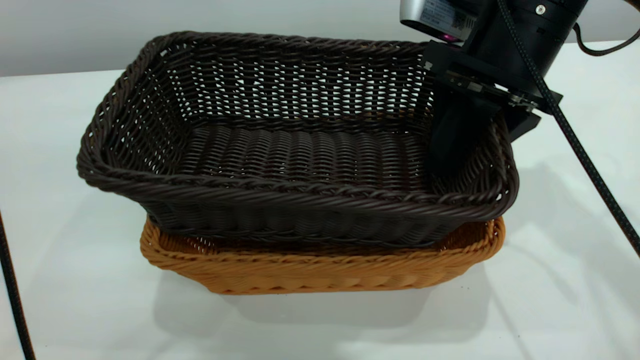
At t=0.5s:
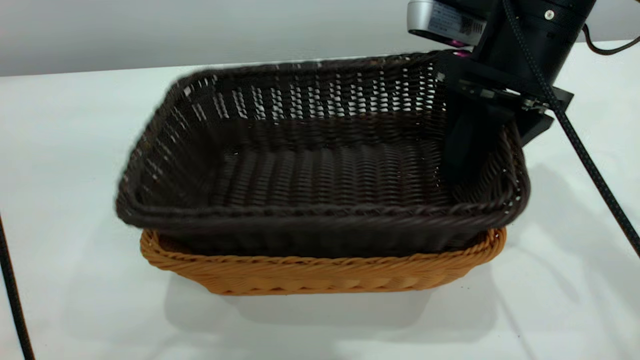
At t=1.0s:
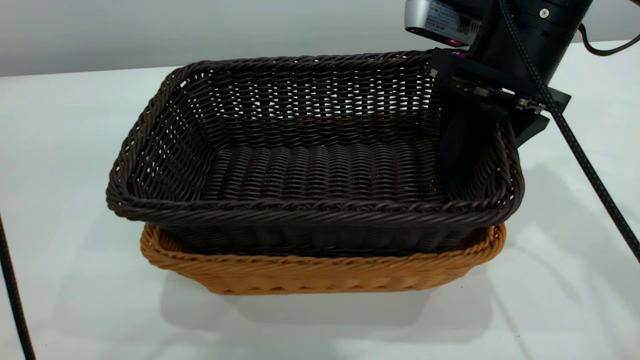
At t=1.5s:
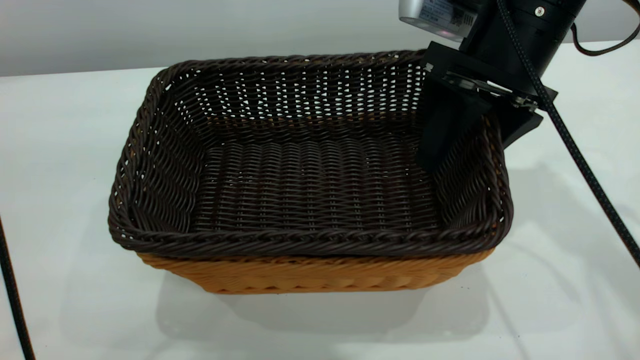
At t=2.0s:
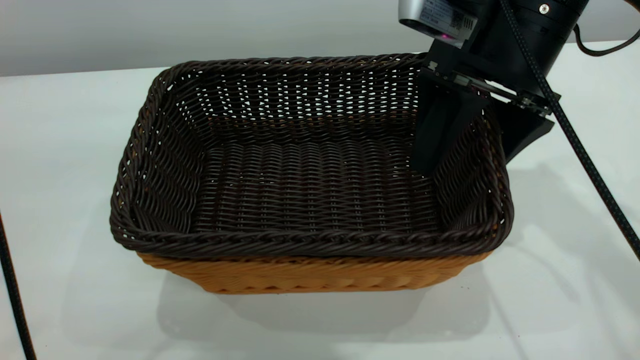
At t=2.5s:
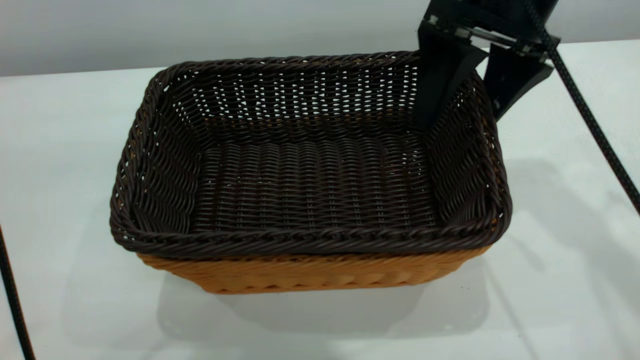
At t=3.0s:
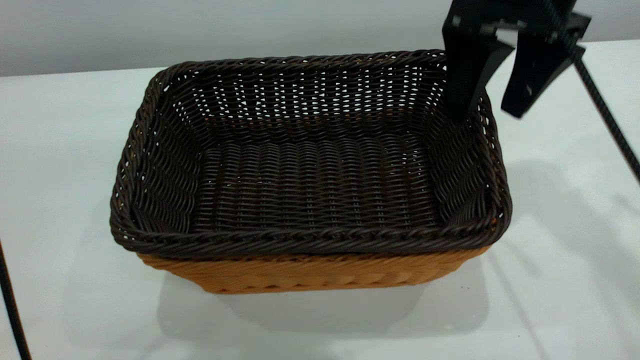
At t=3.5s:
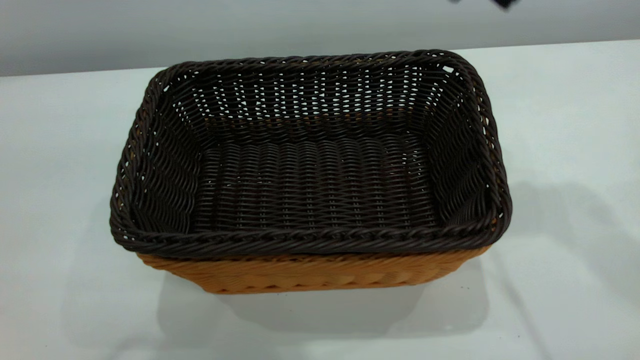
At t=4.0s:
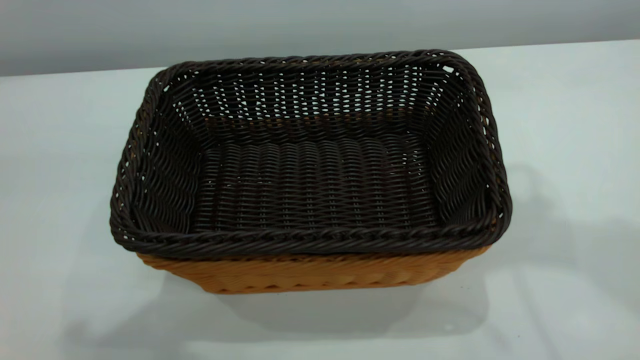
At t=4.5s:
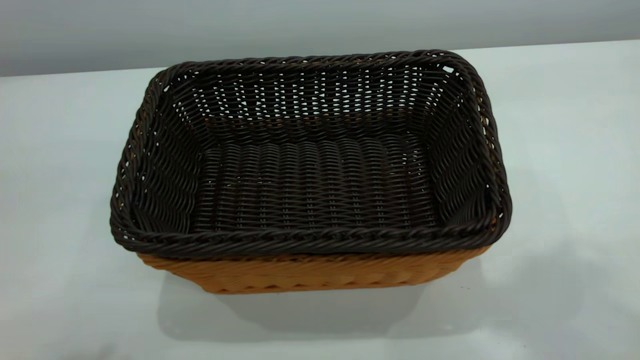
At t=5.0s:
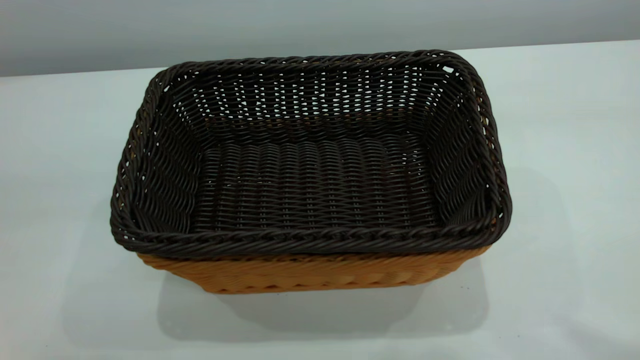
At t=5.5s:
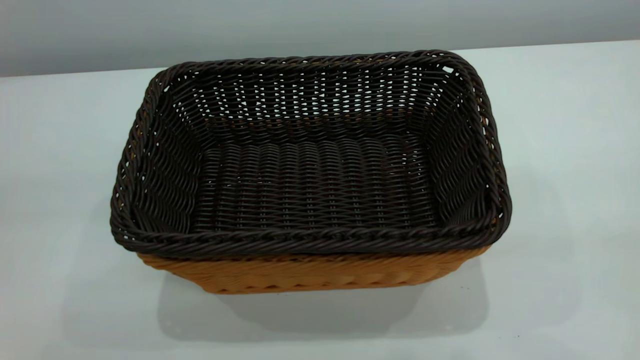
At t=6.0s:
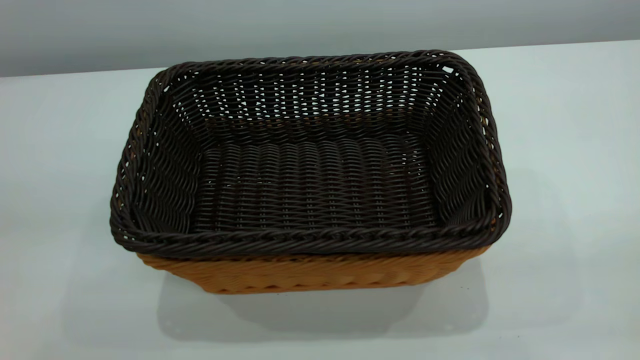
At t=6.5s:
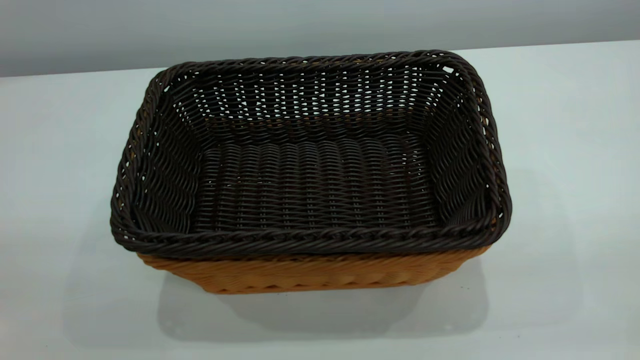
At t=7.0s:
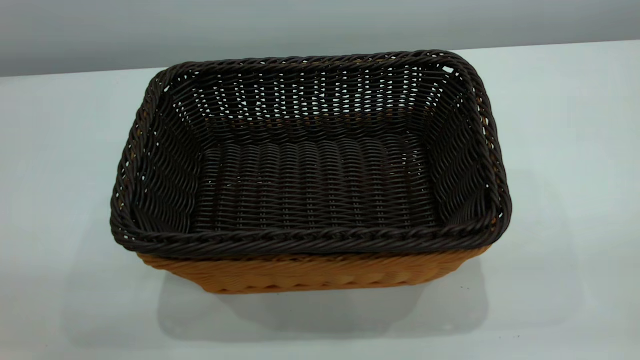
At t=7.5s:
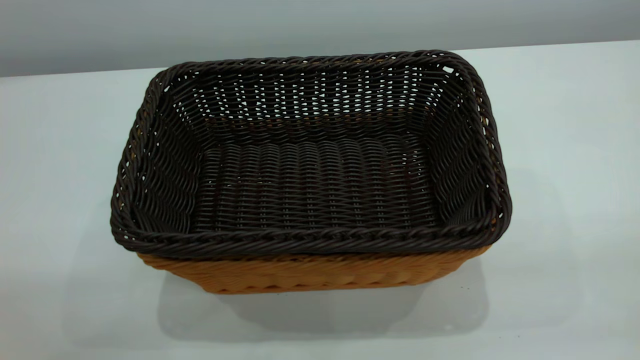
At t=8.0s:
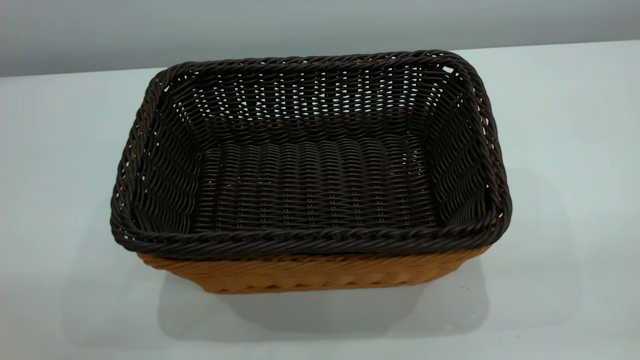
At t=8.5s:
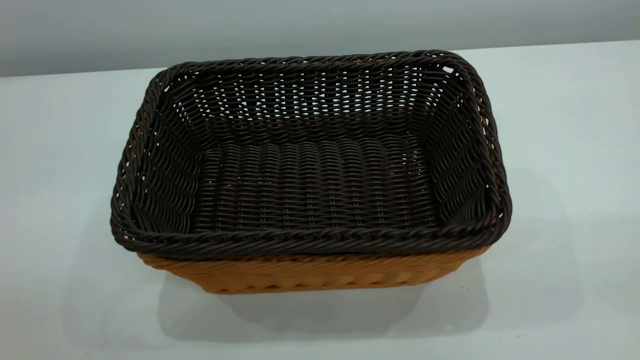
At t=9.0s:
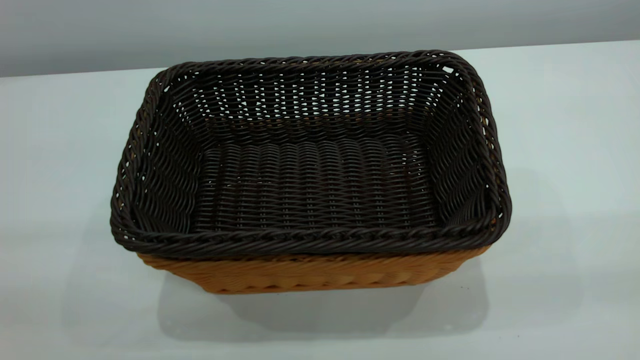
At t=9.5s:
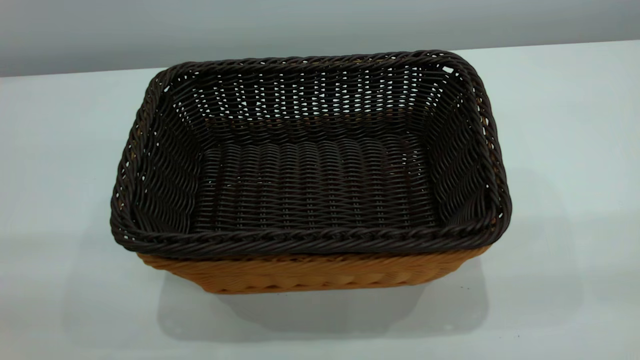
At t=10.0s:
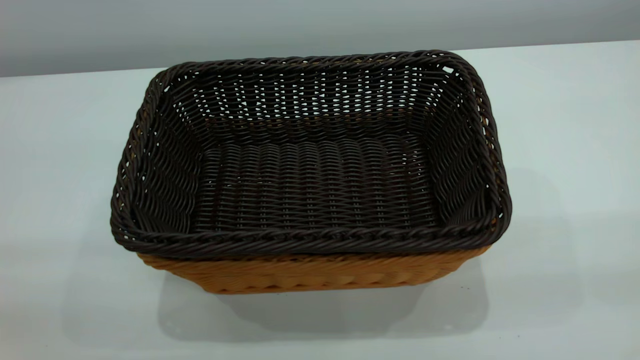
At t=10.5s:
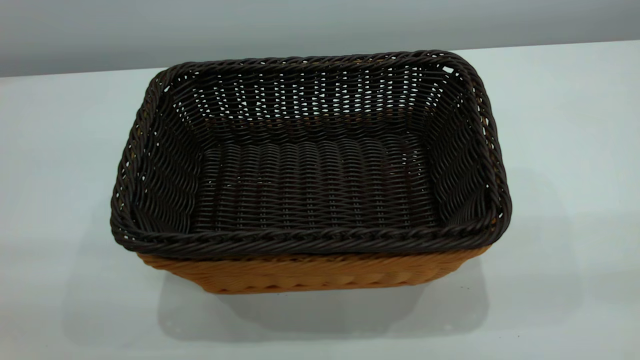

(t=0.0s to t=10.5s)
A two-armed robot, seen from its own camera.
Task of the whole recording: the left gripper grasp the brown basket and place it in the center of the table, the right gripper grasp the black basket and place it inside the brown one.
Step, t=0.0s - t=3.0s: Place the dark basket on top of the light basket.
t=0.0s - t=2.0s: The right gripper opens up.
t=2.0s - t=4.0s: The right gripper shifts about 20 cm upward, and closes its fingers. Meanwhile the left gripper is displaced to the left by some 10 cm, and closes up.

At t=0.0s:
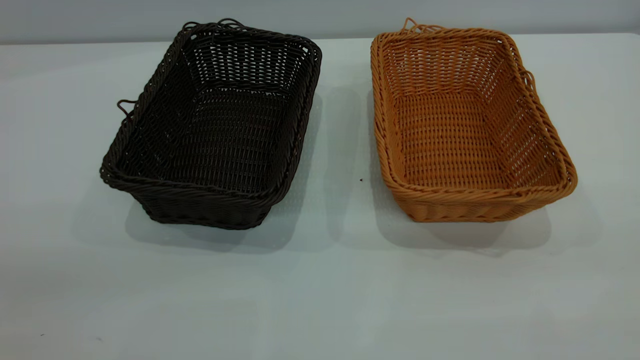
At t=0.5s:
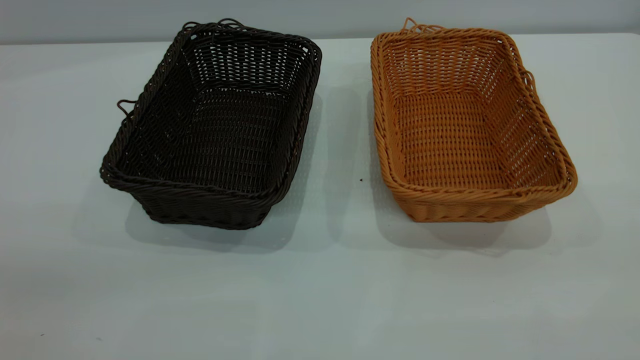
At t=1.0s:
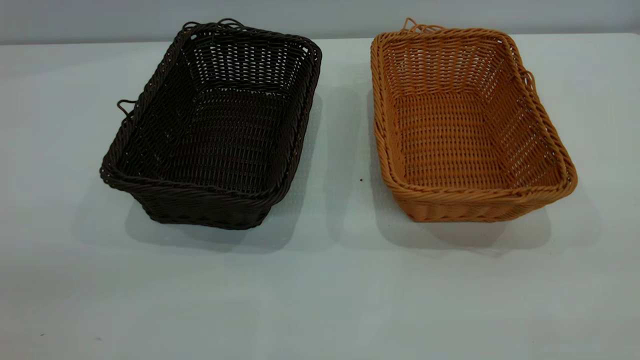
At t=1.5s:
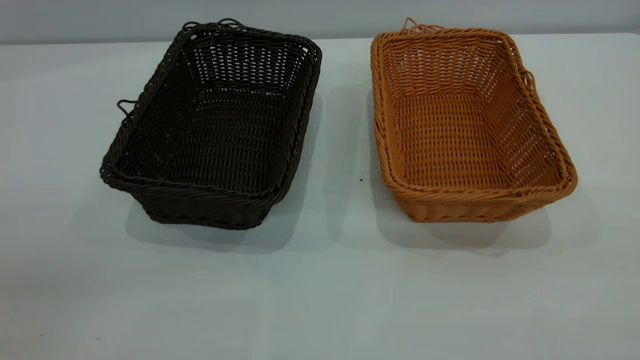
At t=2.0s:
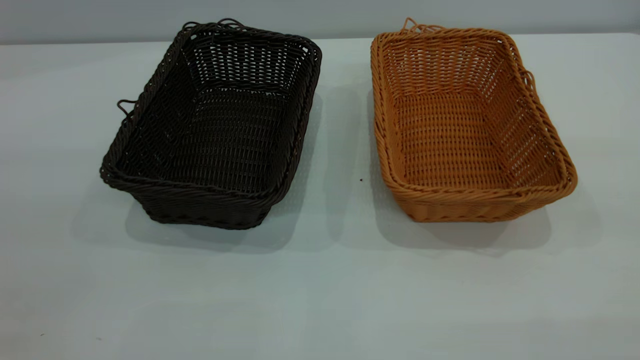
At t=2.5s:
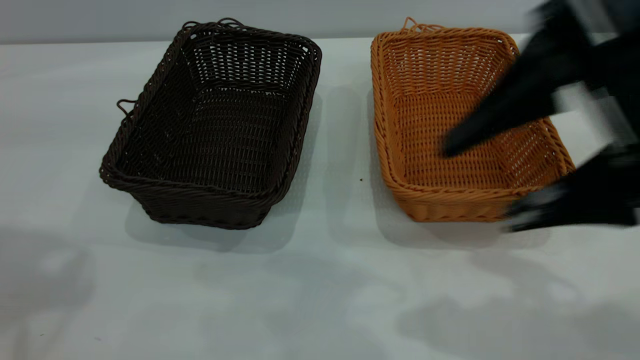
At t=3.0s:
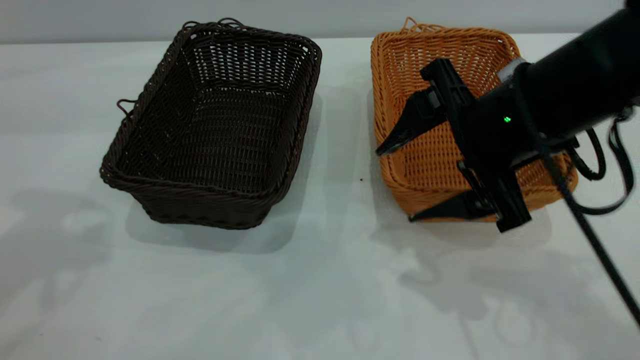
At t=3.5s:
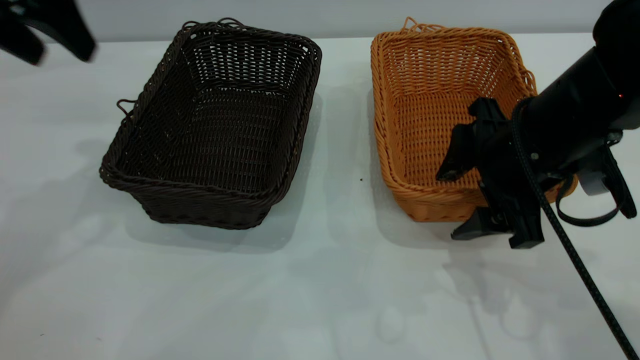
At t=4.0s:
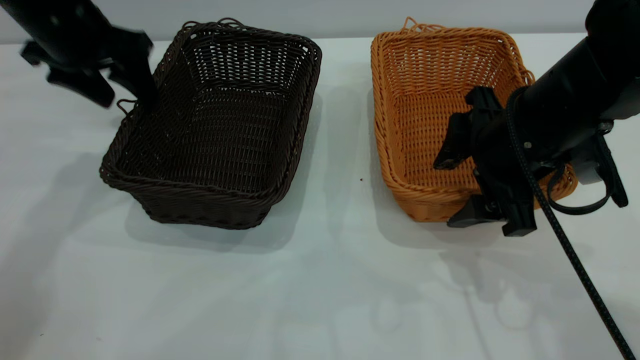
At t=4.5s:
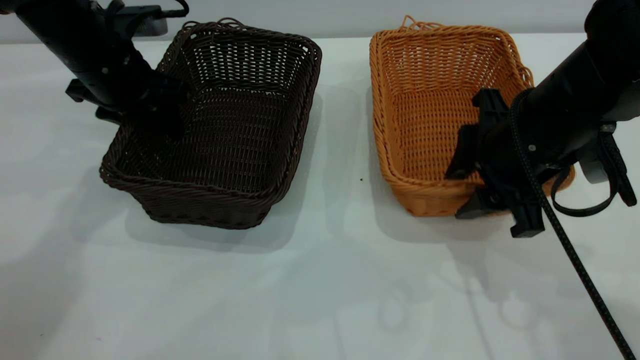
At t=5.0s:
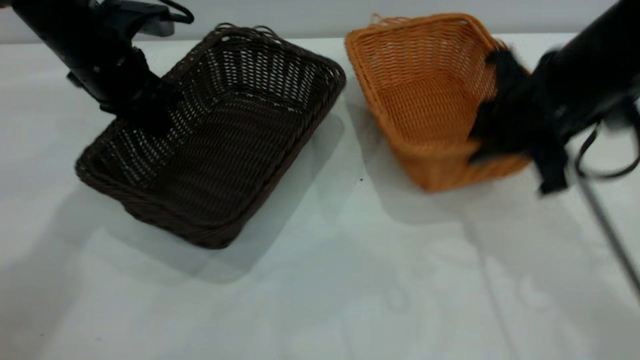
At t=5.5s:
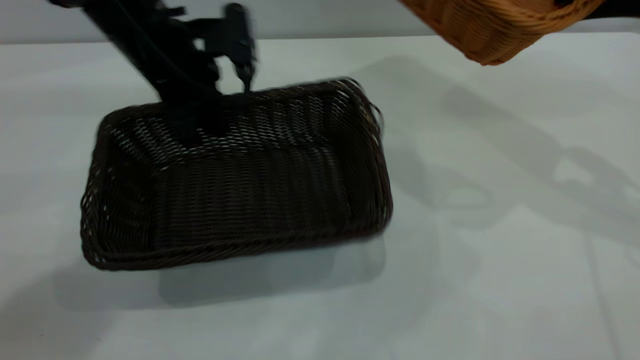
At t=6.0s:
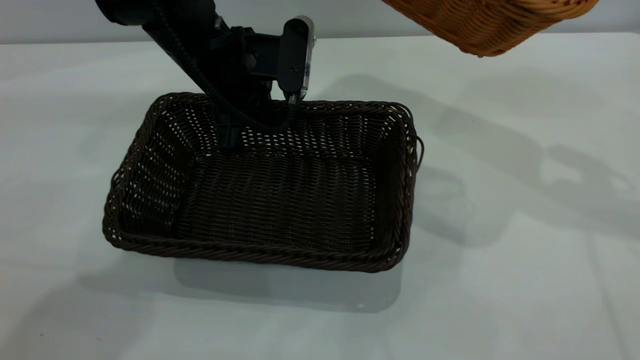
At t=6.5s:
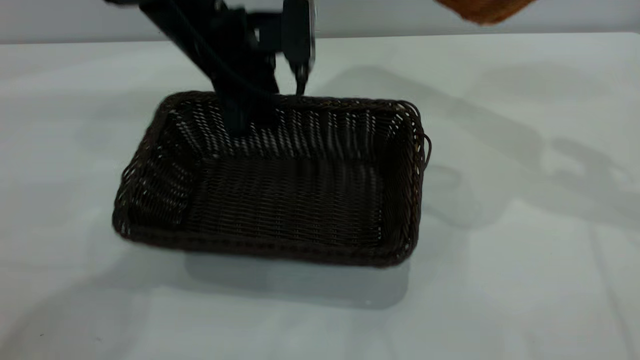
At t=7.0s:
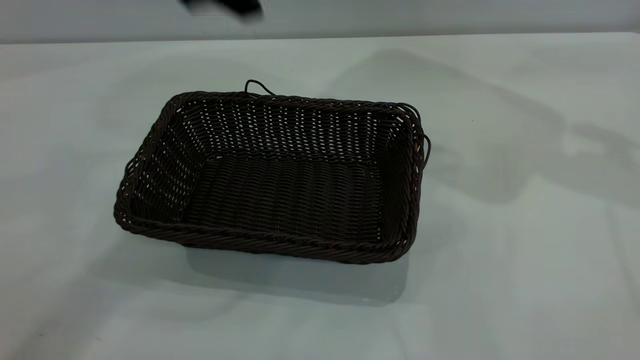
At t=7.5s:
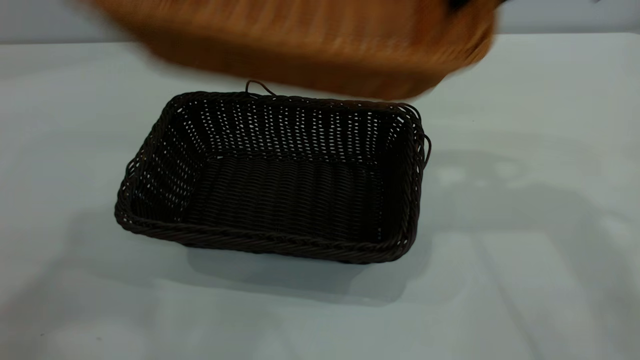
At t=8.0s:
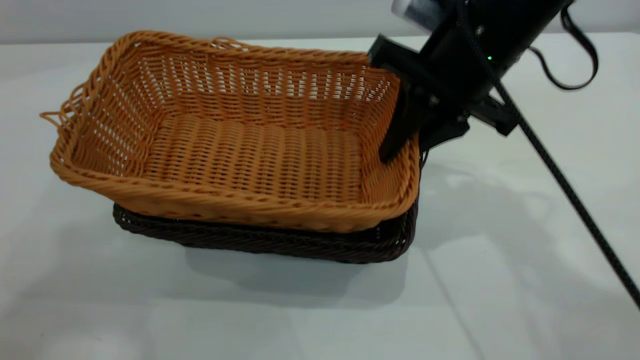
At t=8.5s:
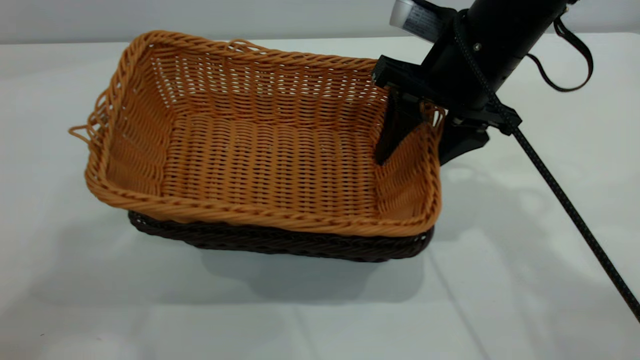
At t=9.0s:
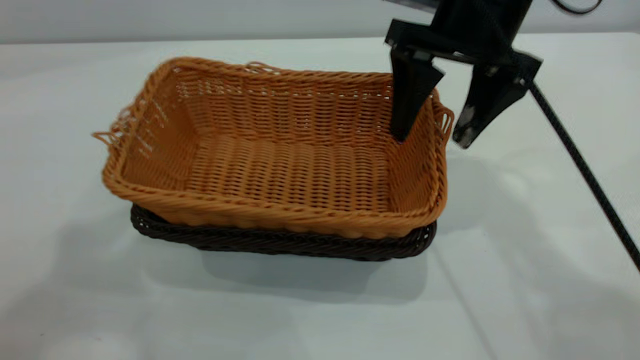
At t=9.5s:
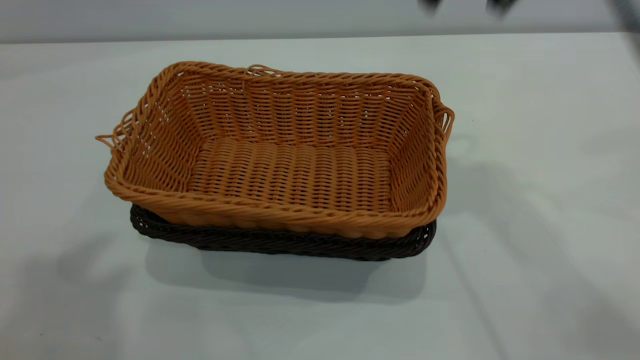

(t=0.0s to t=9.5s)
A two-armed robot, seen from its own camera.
Task of the whole recording: the left gripper grasp the black basket and place it in the center of the table, the right gripper grasp the brown basket and place it inside the black one.
Step, t=0.0s - t=5.0s: Pick up the light basket with the right gripper.
Step, t=5.5s - t=6.5s: Move the dark basket to the center of view.
Step, t=7.0s - t=9.0s: Place the light basket on the dark basket.
t=2.0s - t=4.0s: The left gripper goes about 40 cm forward and downward. Meanwhile the right gripper shifts approximately 30 cm downward, forward and to the left.
t=4.0s - t=5.5s: The right gripper shifts about 20 cm upward and to the right, and closes. Meanwhile the left gripper heads to the right, covering approximately 10 cm, and closes its fingers.
t=5.5s - t=7.5s: The right gripper shifts approximately 15 cm to the left, while the left gripper heads upward and backward, covering about 40 cm, and opens.
t=7.5s - t=9.5s: The right gripper travels upward by approximately 5 cm, and opens its fingers, while the left gripper changes place by approximately 5 cm.
